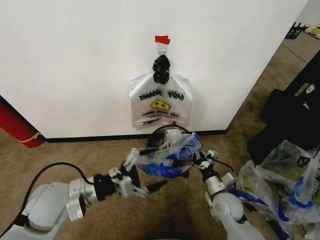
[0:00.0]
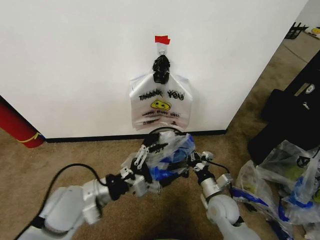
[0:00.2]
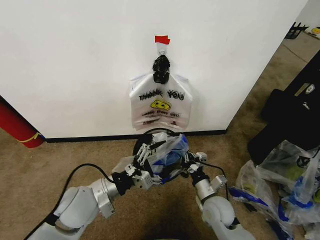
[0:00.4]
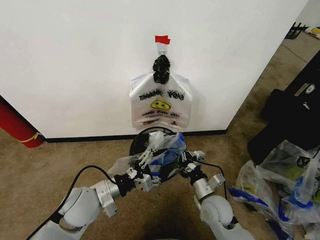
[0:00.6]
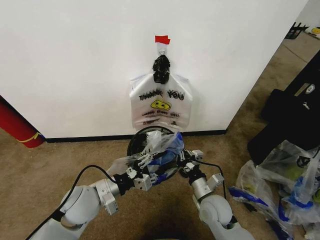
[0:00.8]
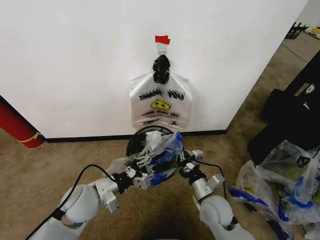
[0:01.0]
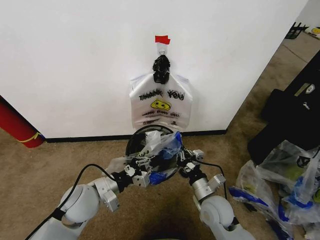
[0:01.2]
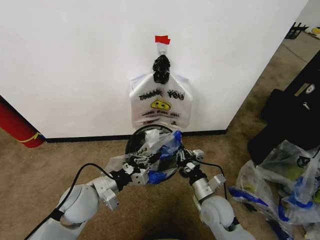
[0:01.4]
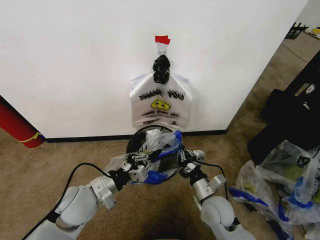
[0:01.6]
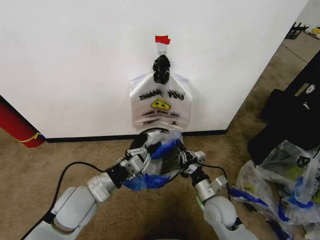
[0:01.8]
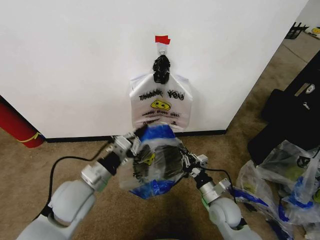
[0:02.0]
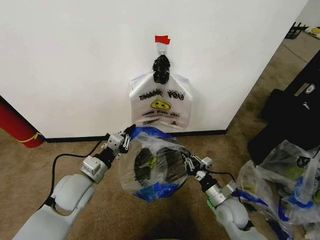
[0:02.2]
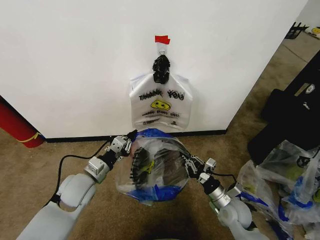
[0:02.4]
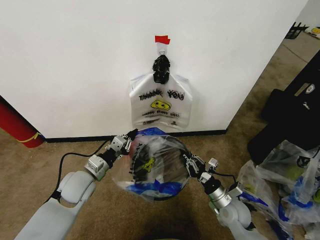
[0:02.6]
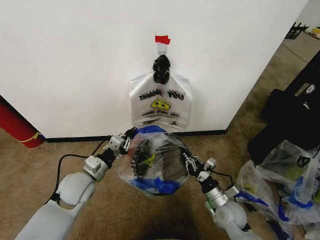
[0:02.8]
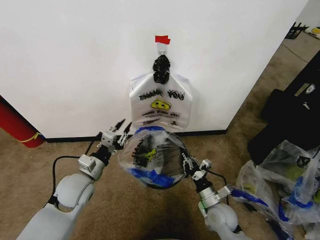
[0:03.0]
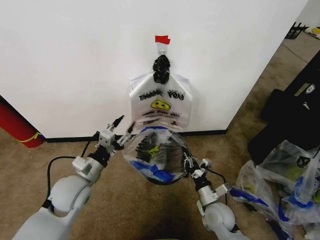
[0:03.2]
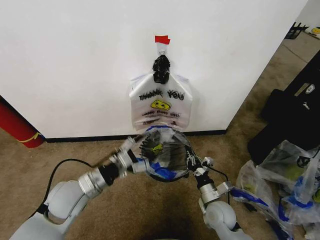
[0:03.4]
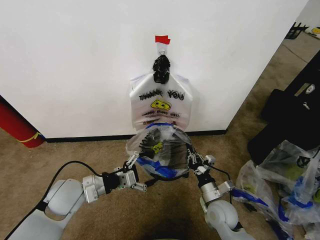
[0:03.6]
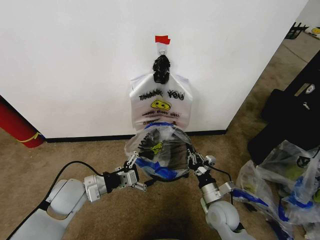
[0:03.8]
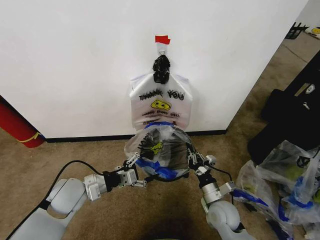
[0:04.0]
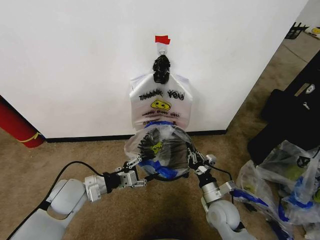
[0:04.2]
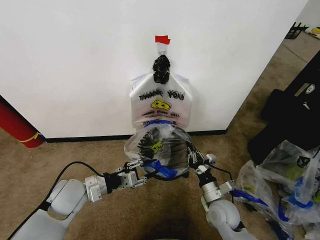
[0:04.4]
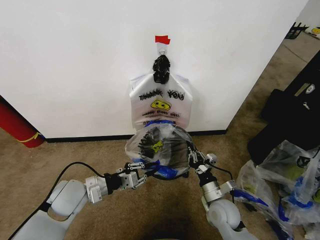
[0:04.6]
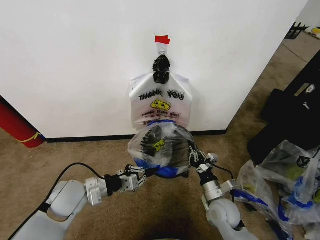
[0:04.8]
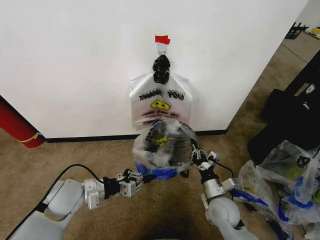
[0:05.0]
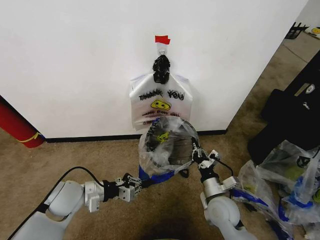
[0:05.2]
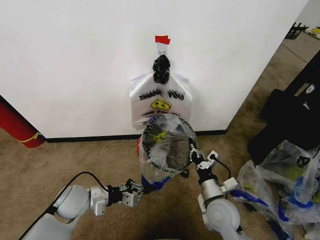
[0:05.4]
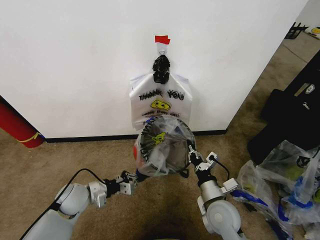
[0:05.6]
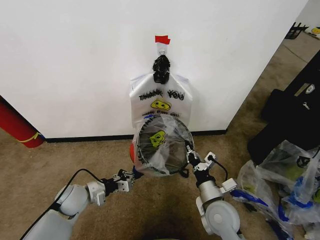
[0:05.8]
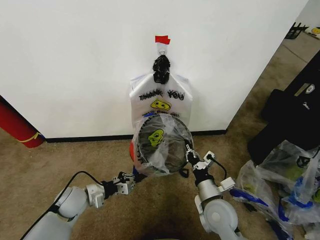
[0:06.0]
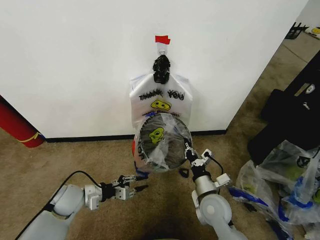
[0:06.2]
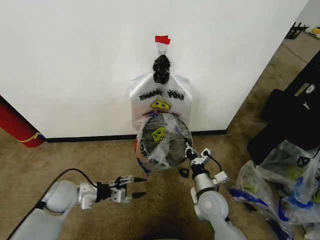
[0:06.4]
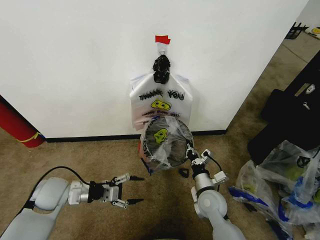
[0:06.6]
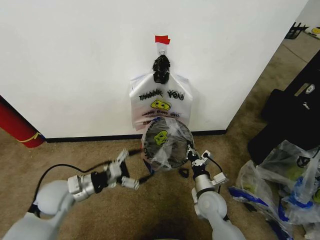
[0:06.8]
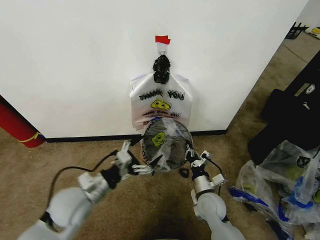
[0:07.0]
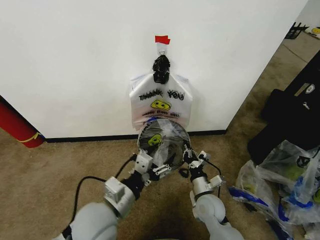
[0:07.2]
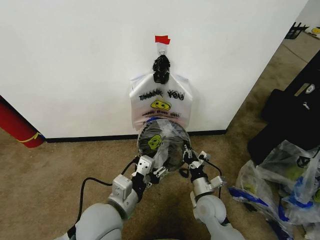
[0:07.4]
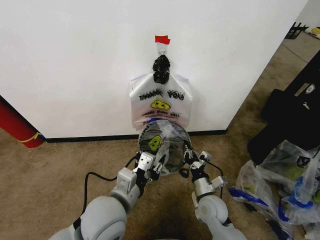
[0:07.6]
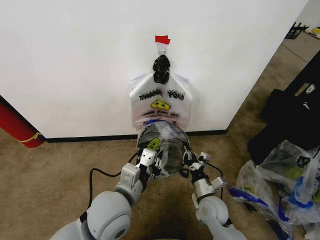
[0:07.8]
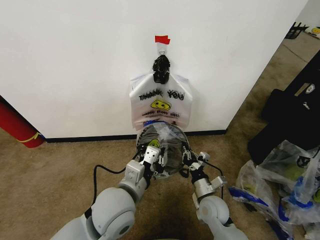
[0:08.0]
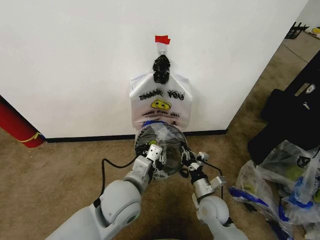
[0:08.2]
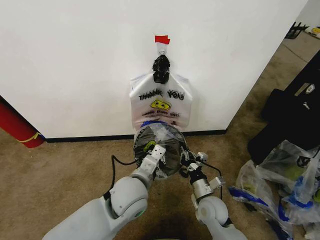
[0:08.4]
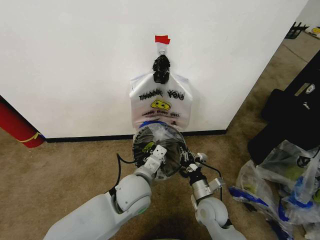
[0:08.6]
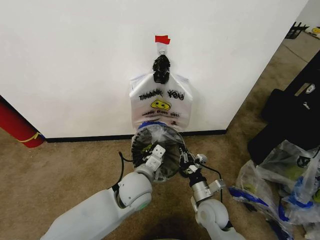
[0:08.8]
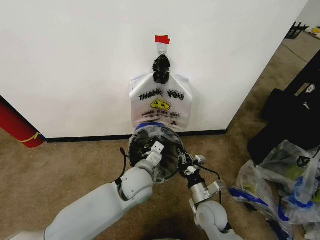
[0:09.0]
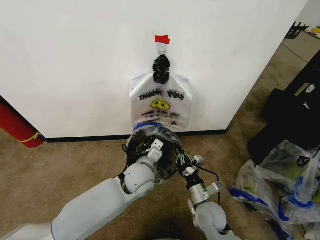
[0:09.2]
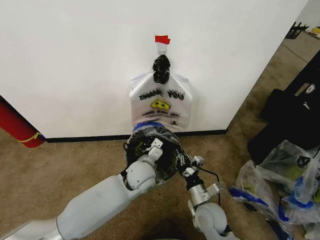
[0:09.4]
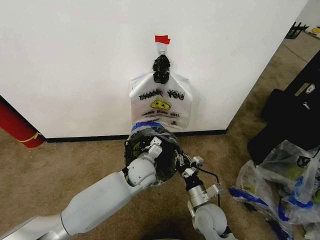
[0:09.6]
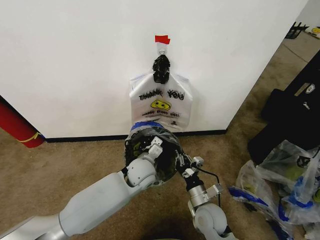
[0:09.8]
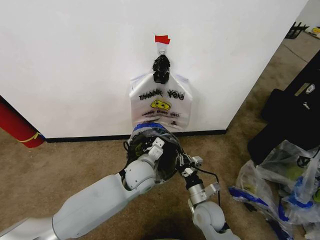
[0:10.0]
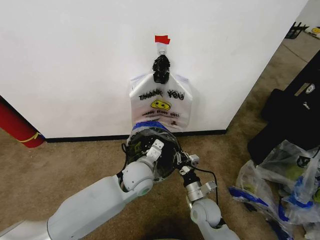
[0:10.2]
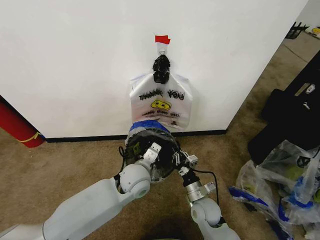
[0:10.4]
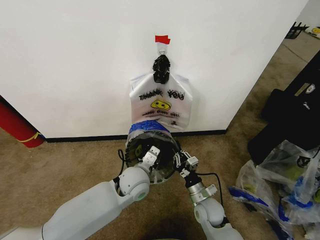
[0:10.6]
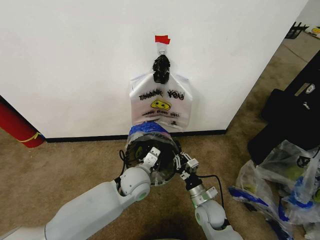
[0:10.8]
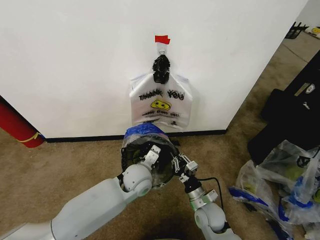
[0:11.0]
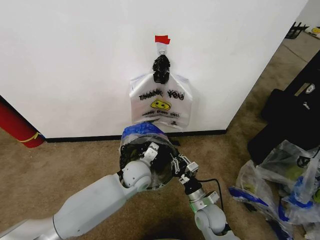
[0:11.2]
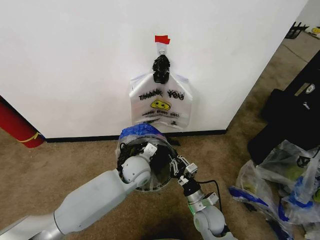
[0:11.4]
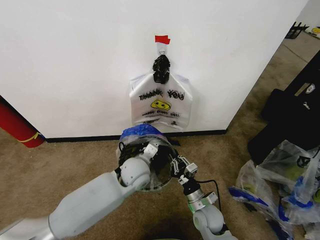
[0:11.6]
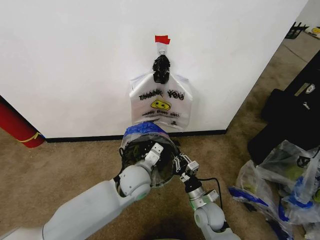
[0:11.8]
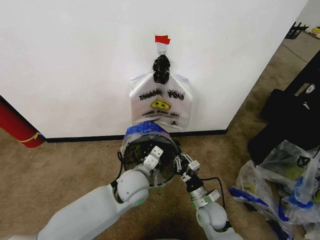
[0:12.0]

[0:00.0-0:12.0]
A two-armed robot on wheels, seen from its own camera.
Task of the whole recording: Pick up the garbage bag from the wall and place it over the trash bin.
0:00.0 to 0:01.6: The right gripper shifts by about 5 cm; the left gripper moves some 5 cm, and closes its fingers.
0:01.6 to 0:03.0: The right gripper heads downward, covering about 5 cm. Meanwhile the left gripper ends up approximately 5 cm from where it was.
0:03.0 to 0:04.4: The left gripper opens, then closes once more.
0:04.4 to 0:06.0: The right gripper heads upward, covering about 5 cm, while the left gripper goes about 10 cm downward.
0:06.0 to 0:07.6: The right gripper moves downward, approximately 5 cm. Meanwhile the left gripper travels to the right, upward and backward by some 25 cm, and opens, then closes once more.
0:07.6 to 0:09.0: The left gripper is displaced forward, downward and to the right by approximately 15 cm.
0:09.0 to 0:10.4: There are only small adjustments of the grippers.
0:10.4 to 0:12.0: There are only small adjustments of the grippers.

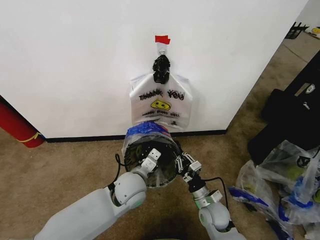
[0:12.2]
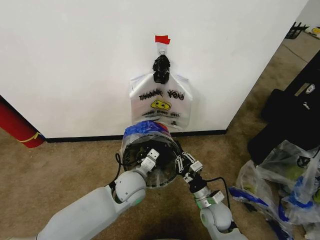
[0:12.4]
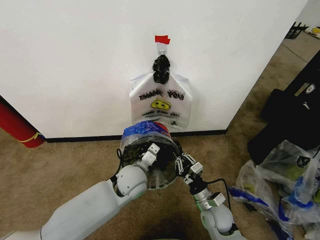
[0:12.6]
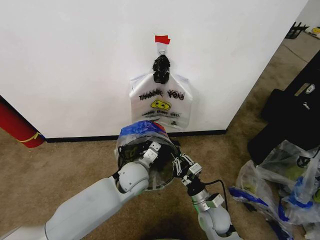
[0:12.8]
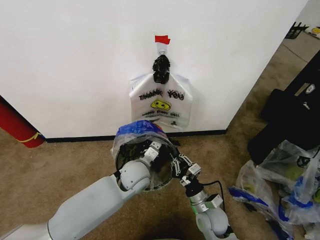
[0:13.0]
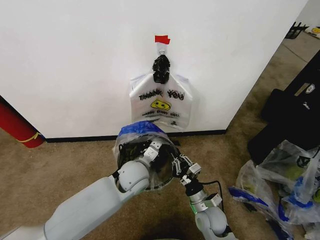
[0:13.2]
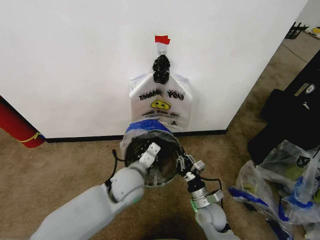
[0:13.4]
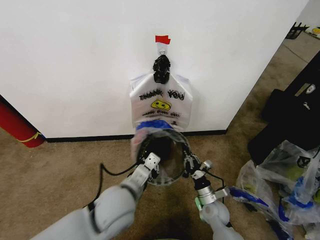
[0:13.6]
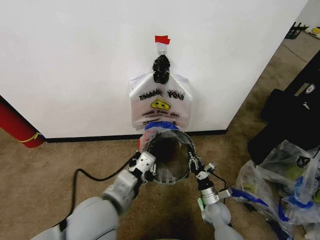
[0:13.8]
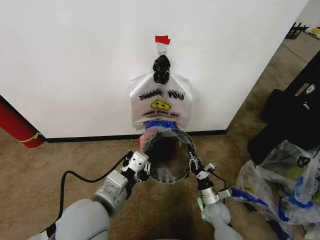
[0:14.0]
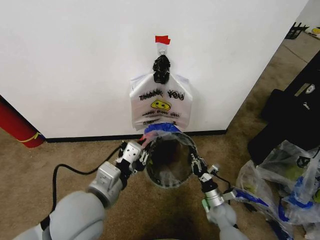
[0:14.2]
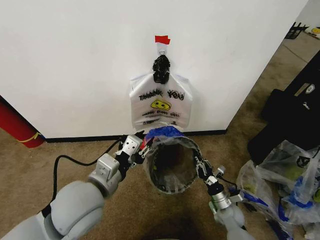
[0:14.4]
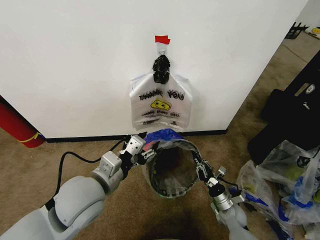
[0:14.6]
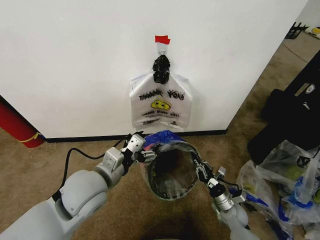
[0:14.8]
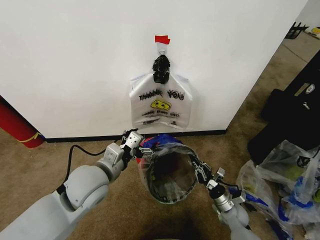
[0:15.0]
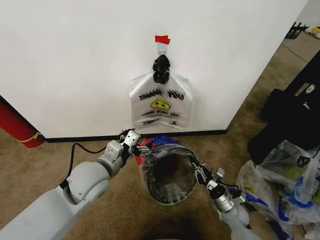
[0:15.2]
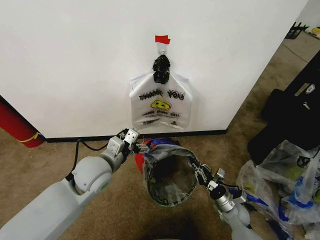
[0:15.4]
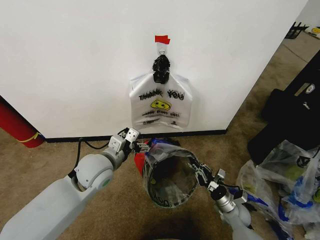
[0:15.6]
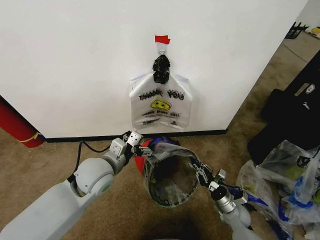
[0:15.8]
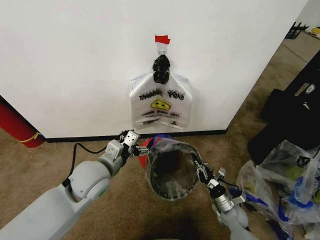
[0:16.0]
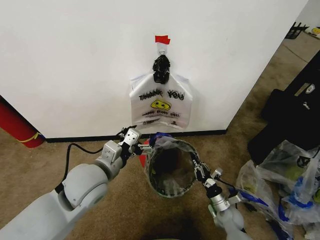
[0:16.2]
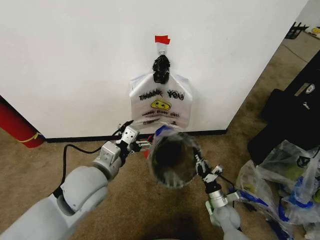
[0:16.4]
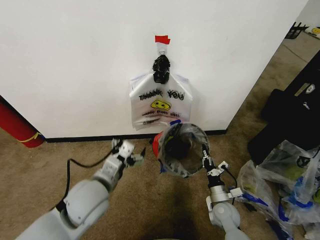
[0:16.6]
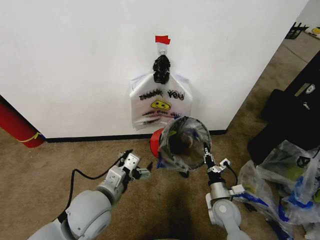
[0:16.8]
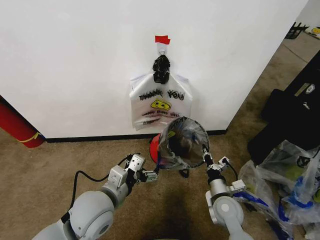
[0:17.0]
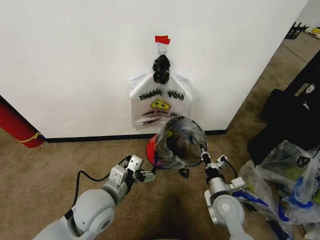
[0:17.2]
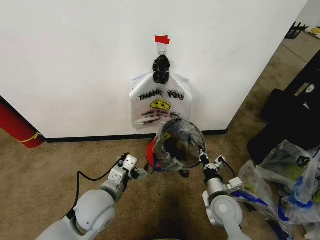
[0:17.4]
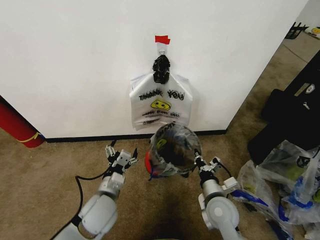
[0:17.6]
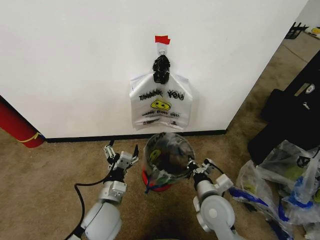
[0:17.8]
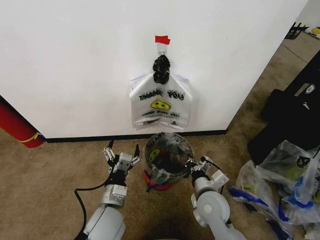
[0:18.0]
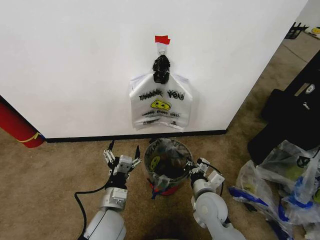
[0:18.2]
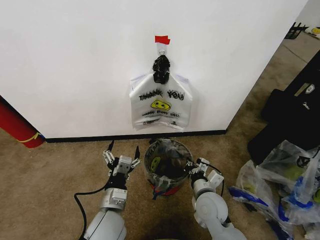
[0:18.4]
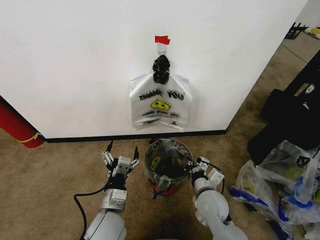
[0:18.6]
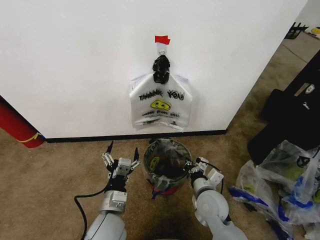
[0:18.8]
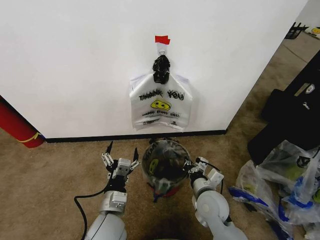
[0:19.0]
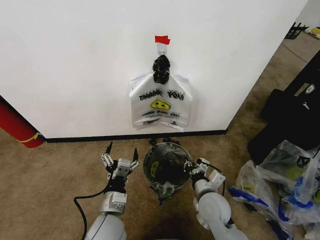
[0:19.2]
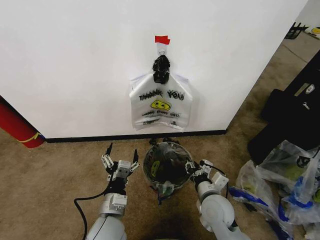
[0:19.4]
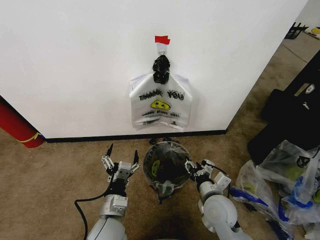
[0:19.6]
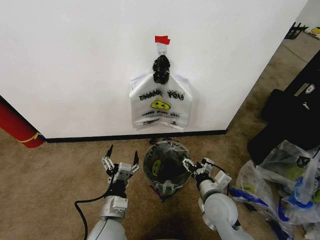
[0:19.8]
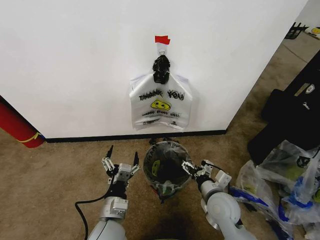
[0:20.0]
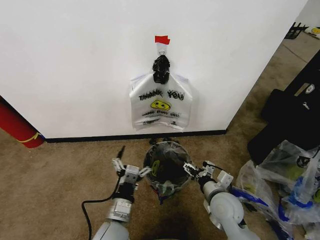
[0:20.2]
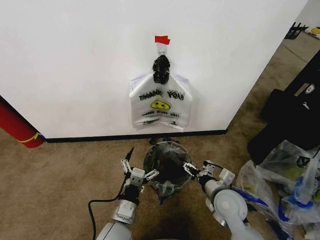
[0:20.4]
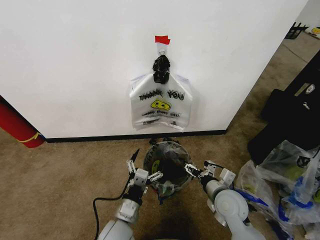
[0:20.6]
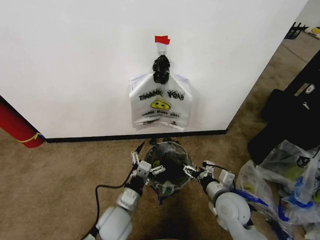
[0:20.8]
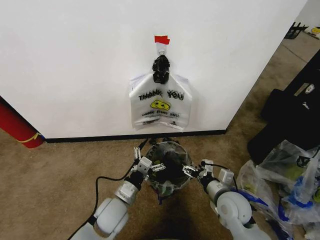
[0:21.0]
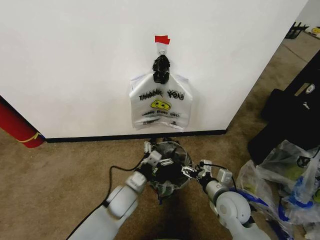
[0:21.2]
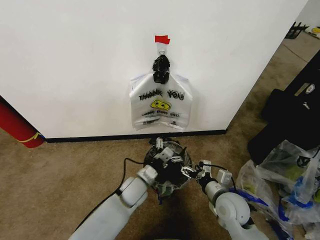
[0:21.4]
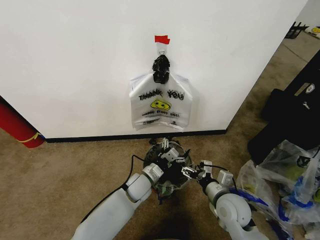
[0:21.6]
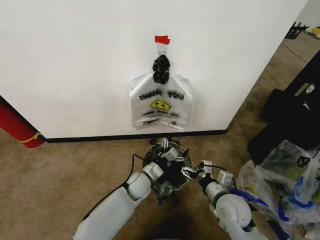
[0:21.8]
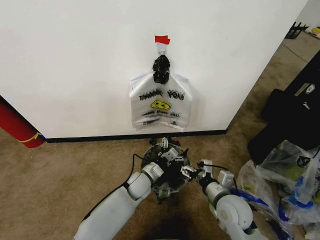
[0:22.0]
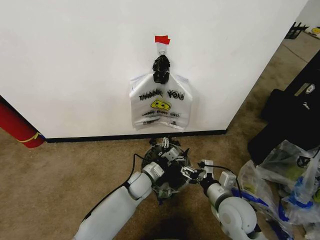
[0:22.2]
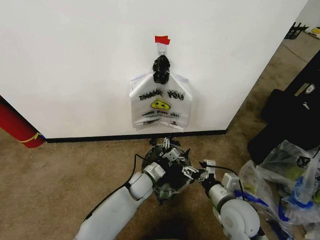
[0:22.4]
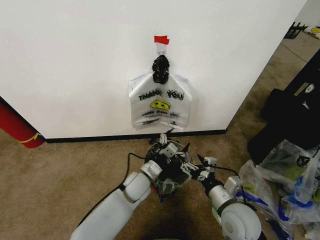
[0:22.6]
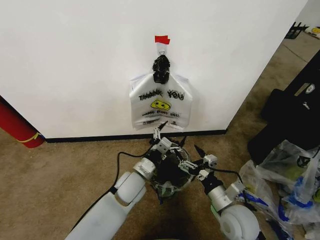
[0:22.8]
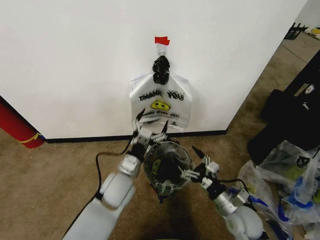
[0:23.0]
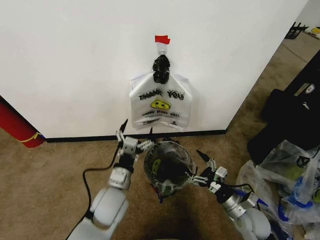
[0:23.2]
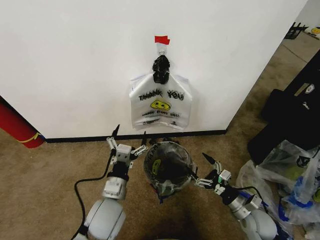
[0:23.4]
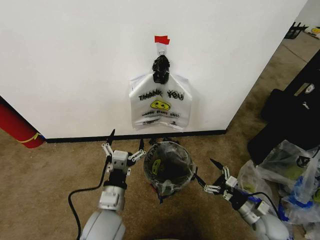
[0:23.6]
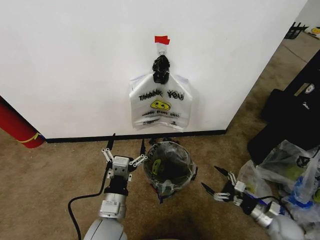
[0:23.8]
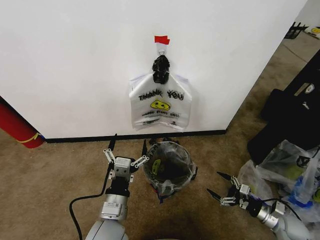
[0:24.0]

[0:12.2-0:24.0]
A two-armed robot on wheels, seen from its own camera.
Task of the whole recording: Pick up the garbage bag from the wall and place it over the trash bin.
0:12.2 to 0:13.6: The left gripper is displaced backward by about 5 cm. The right gripper changes place by approximately 5 cm.
0:13.6 to 0:15.2: The right gripper goes about 10 cm to the right. Meanwhile the left gripper shifts about 10 cm to the left, and opens up.
0:15.2 to 0:16.6: The right gripper moves approximately 5 cm; the left gripper shifts by some 5 cm.
0:16.6 to 0:18.2: The right gripper is displaced upward and to the left by about 15 cm; the left gripper travels downward by roughly 10 cm.
0:18.2 to 0:19.6: The right gripper opens.
0:19.6 to 0:21.0: The left gripper is displaced forward by some 5 cm, while the right gripper opens up.
0:21.0 to 0:22.6: The left gripper shifts about 10 cm forward and to the right. The right gripper moves approximately 5 cm.
0:22.6 to 0:24.0: The left gripper heads backward and upward, covering about 20 cm, while the right gripper shifts roughly 30 cm to the right and downward.
